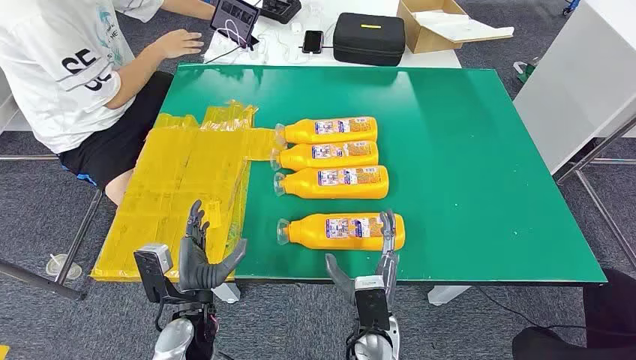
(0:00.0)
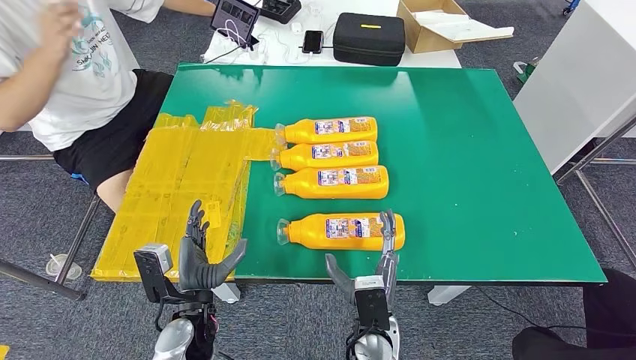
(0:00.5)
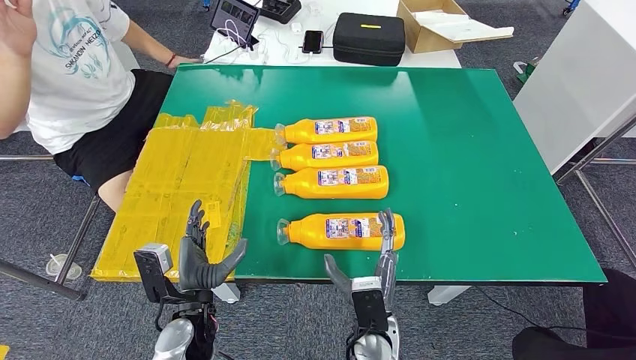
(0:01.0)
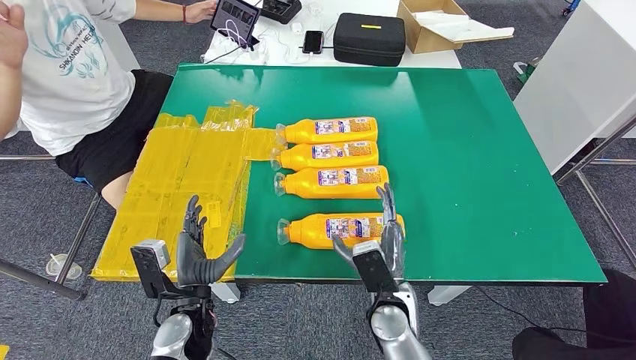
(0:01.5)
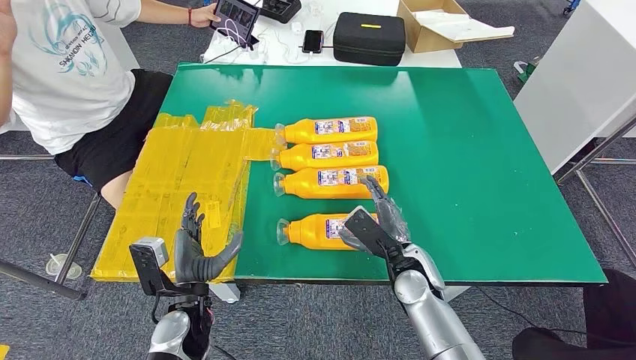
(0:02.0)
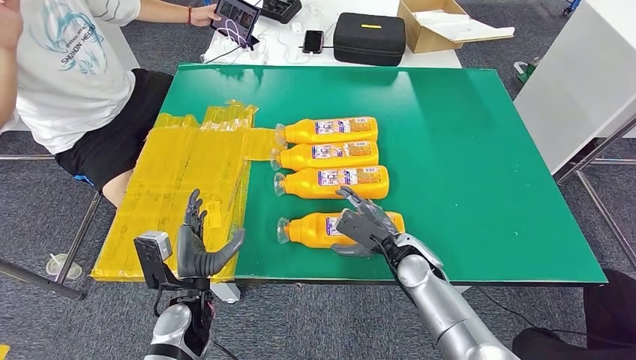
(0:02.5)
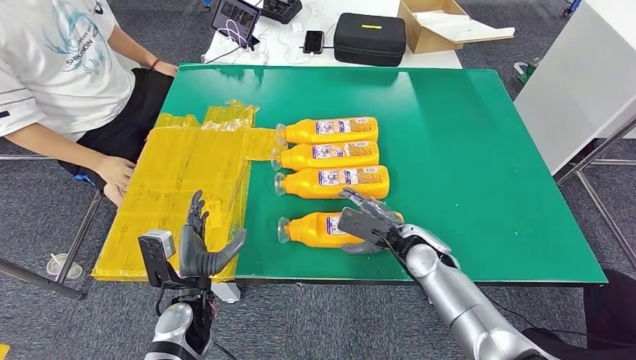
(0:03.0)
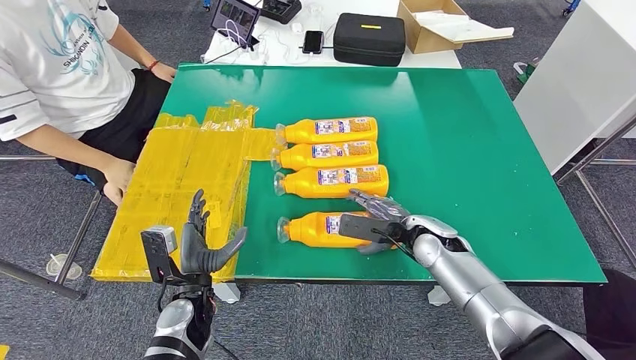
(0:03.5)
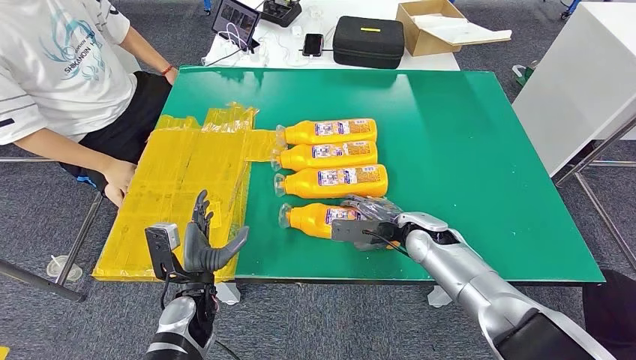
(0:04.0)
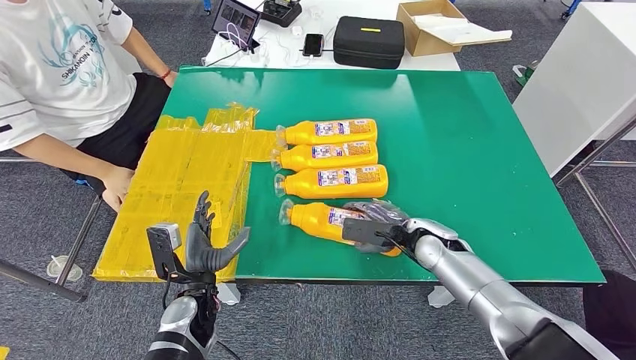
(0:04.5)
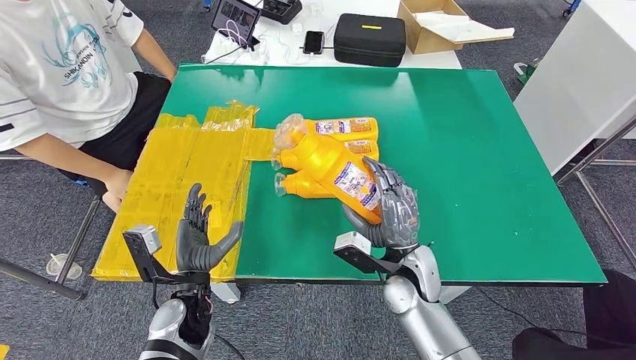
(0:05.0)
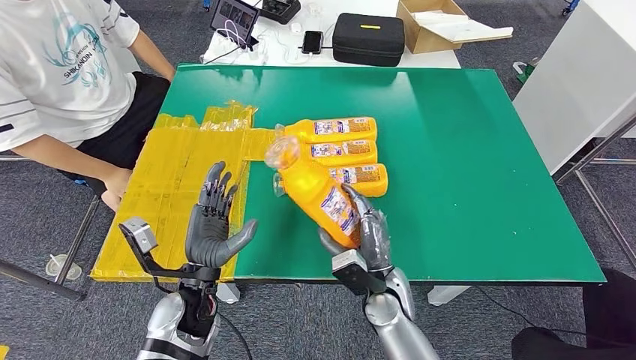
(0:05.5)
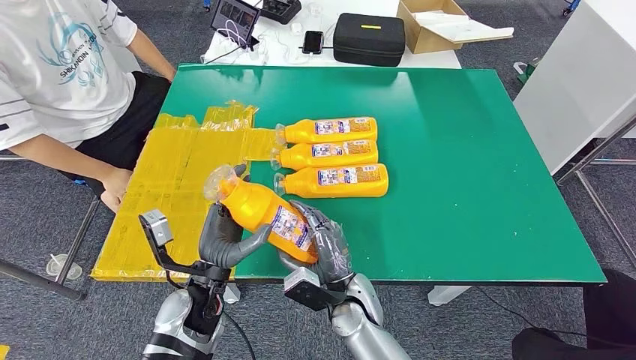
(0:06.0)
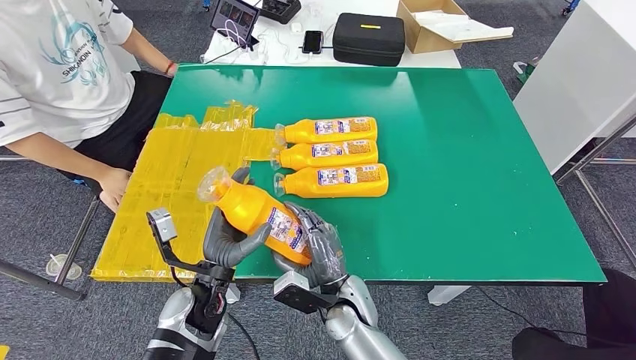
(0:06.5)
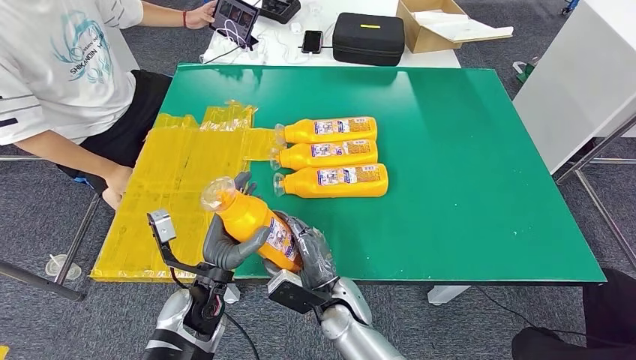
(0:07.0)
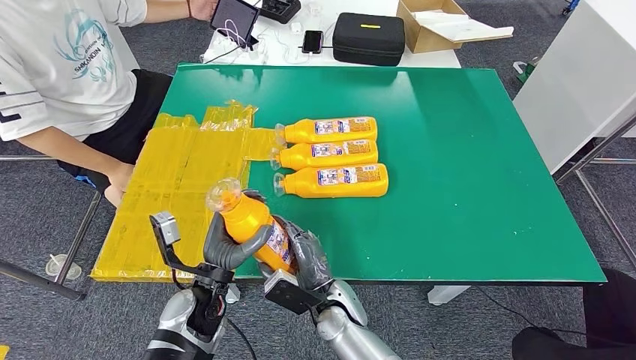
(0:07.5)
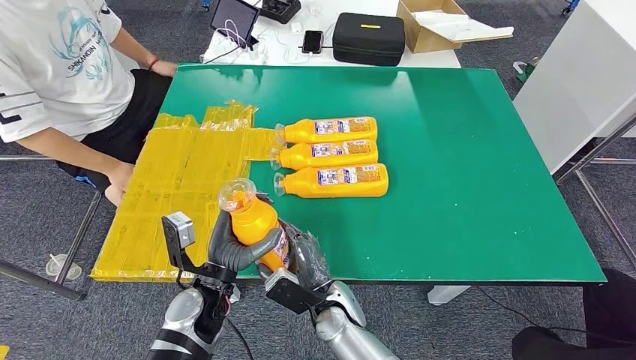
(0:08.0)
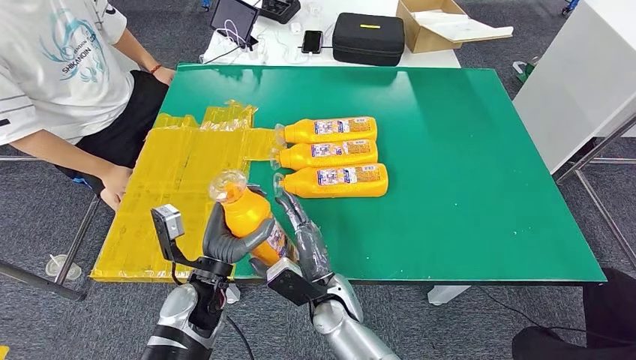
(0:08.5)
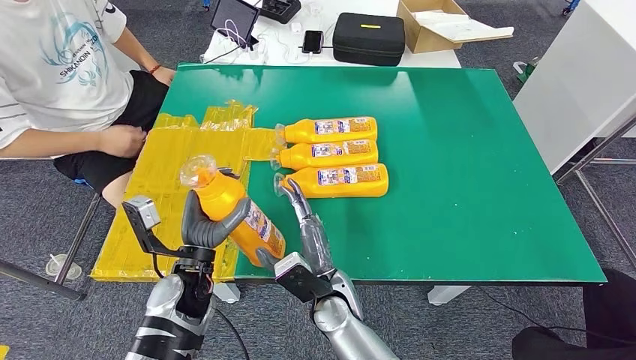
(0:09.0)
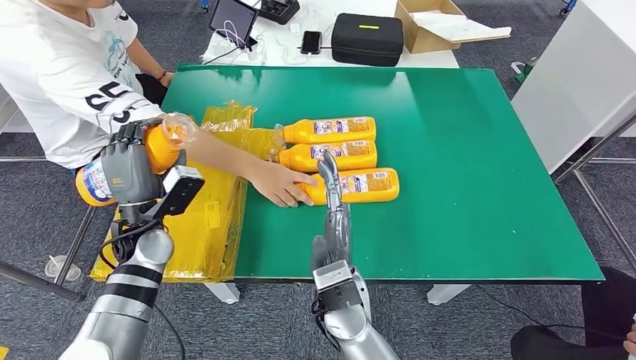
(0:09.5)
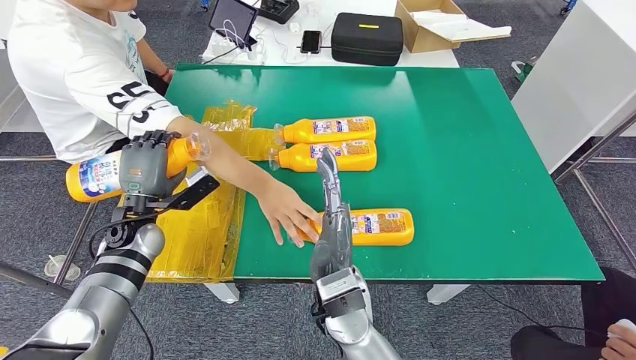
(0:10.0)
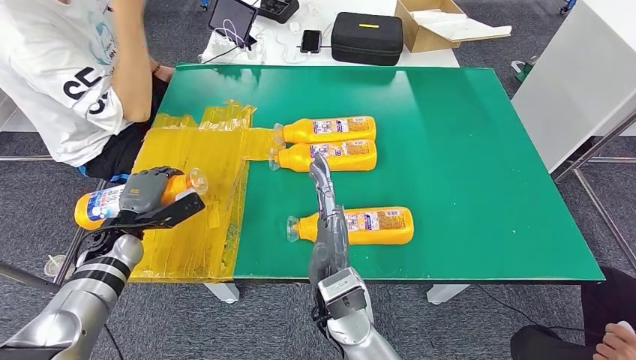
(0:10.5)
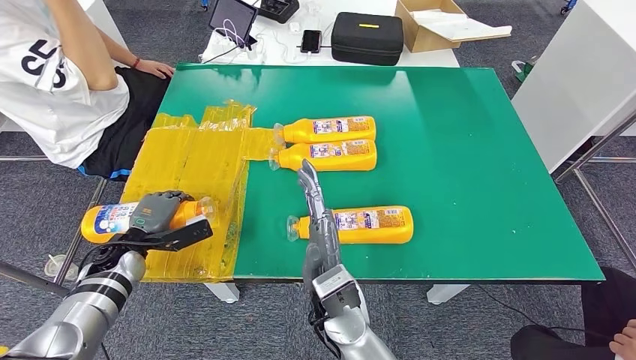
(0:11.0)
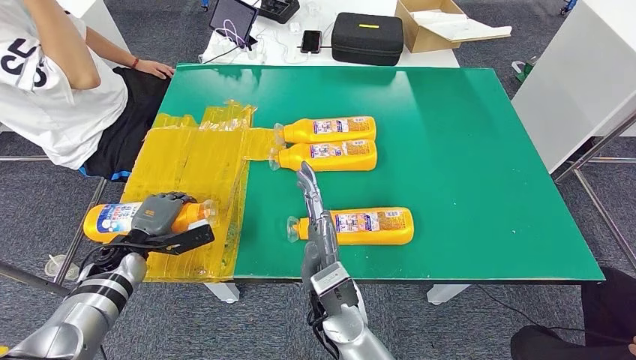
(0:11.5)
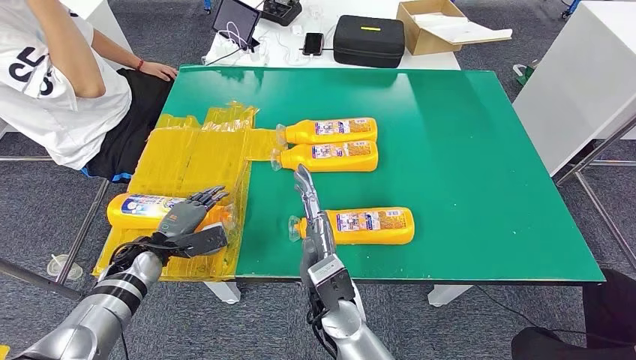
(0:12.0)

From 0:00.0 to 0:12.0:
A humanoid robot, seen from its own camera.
Step, from 0:00.0 to 0:06.0: Take the fast-moving consumer goods bottle from the table.
Step, from 0:06.5 to 0:11.0: Flip the fast-moving consumer goods bottle to the front side.
From 0:06.0 to 0:08.0: The hands stay close to where they were, moving slightly.

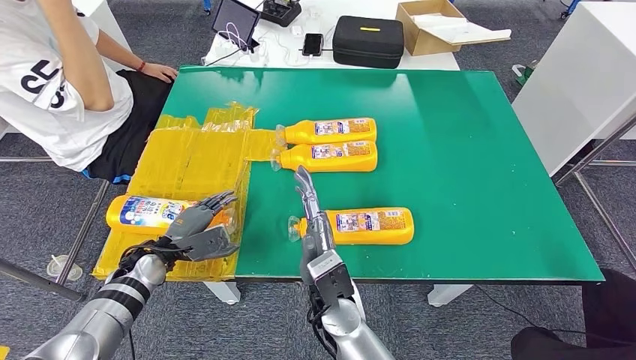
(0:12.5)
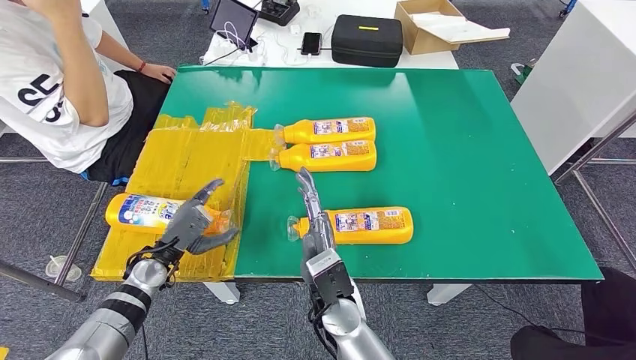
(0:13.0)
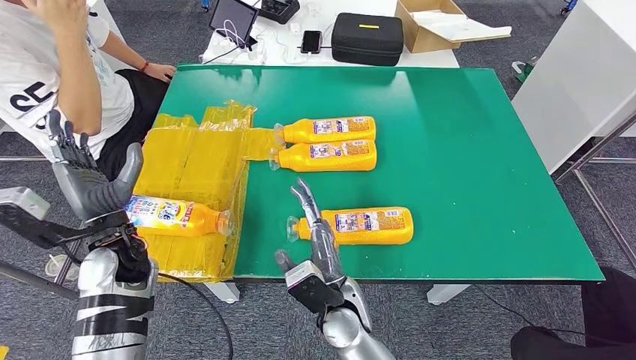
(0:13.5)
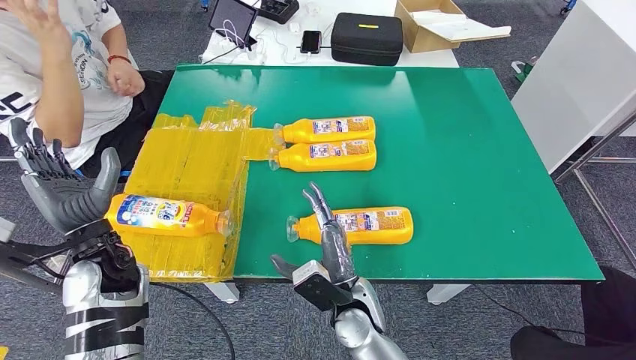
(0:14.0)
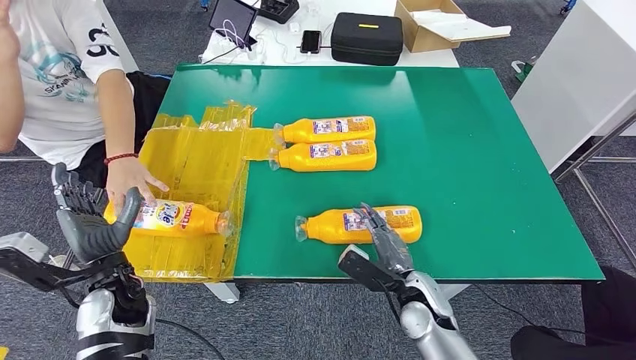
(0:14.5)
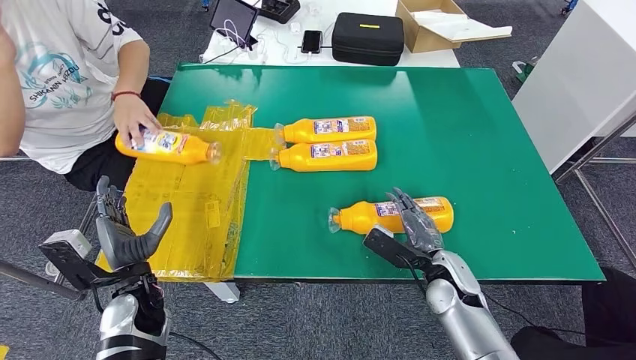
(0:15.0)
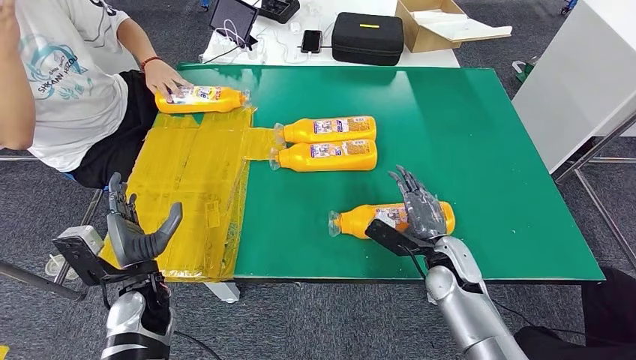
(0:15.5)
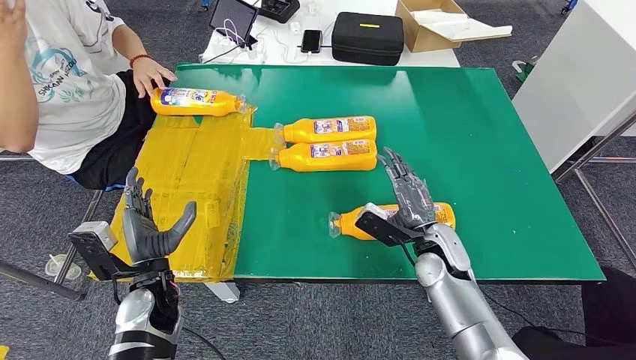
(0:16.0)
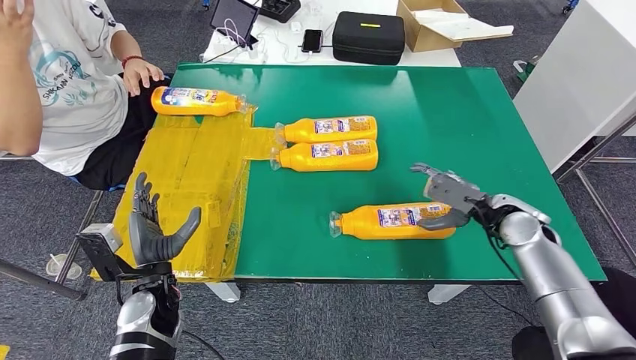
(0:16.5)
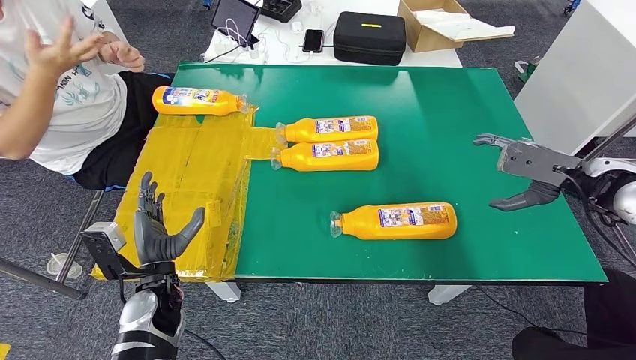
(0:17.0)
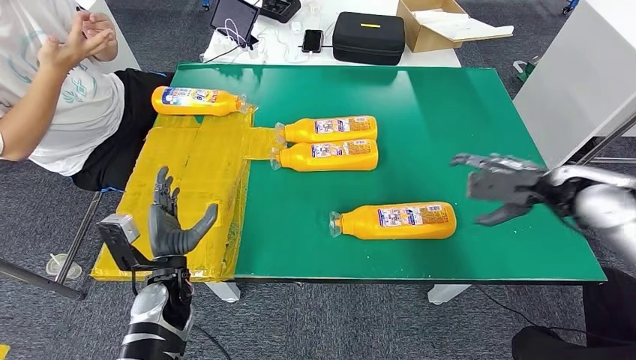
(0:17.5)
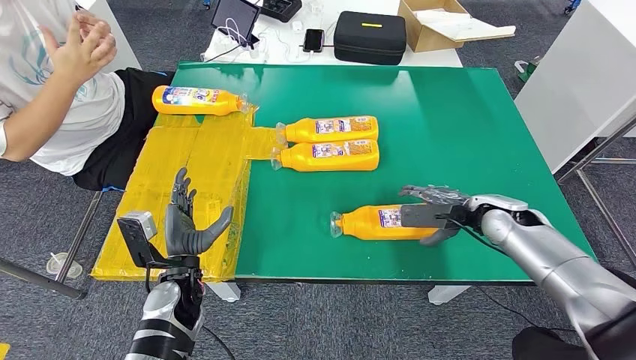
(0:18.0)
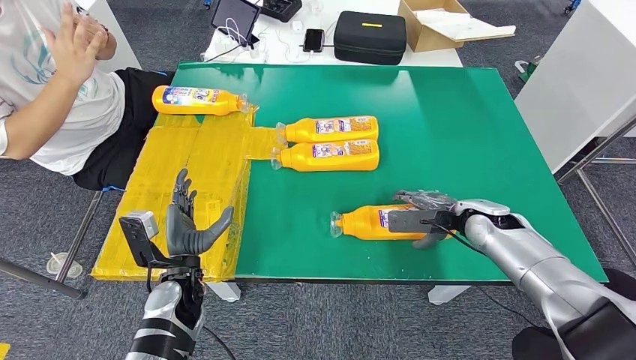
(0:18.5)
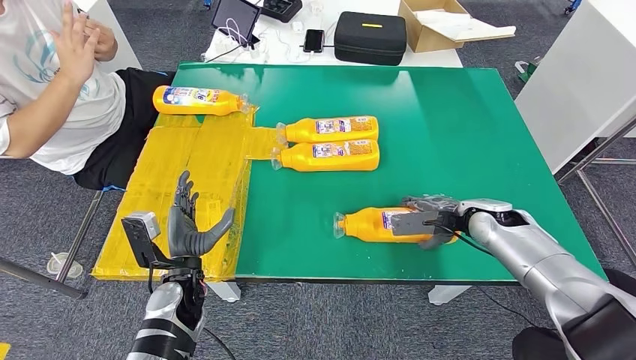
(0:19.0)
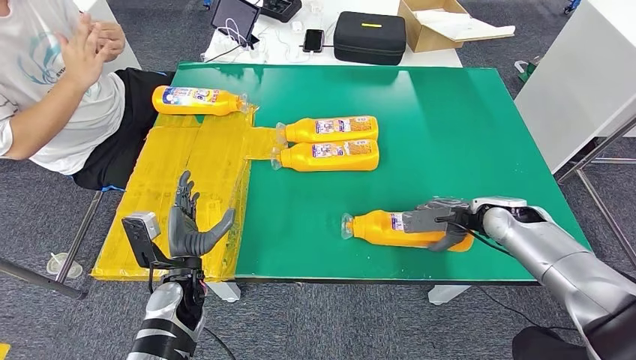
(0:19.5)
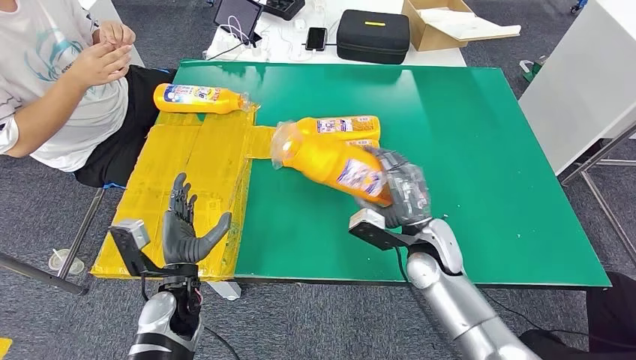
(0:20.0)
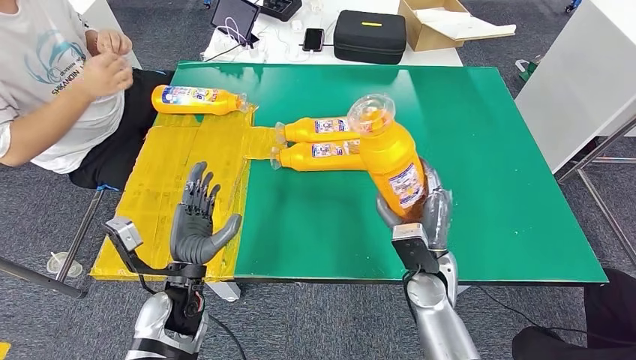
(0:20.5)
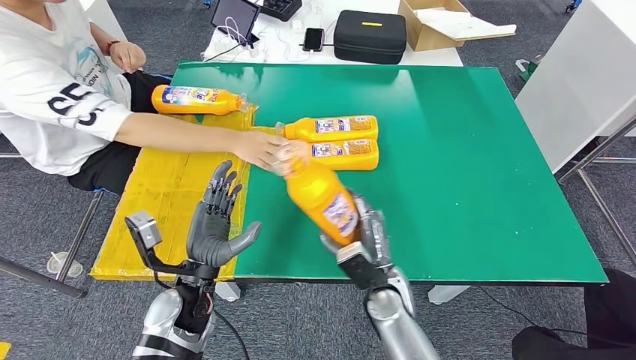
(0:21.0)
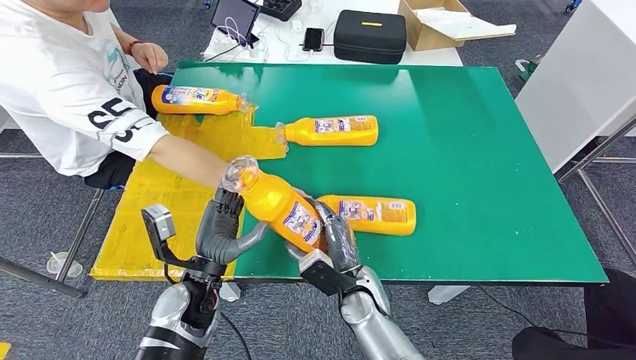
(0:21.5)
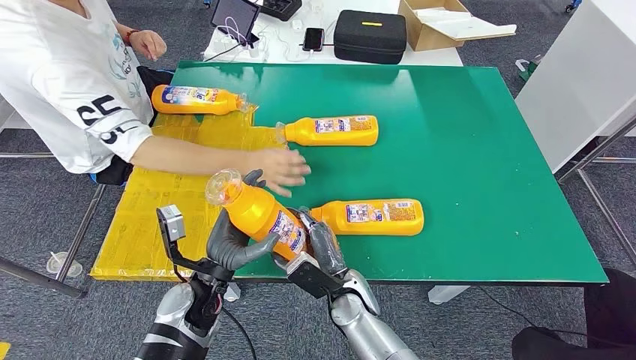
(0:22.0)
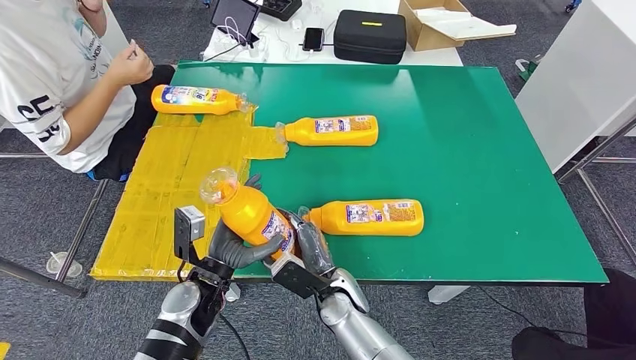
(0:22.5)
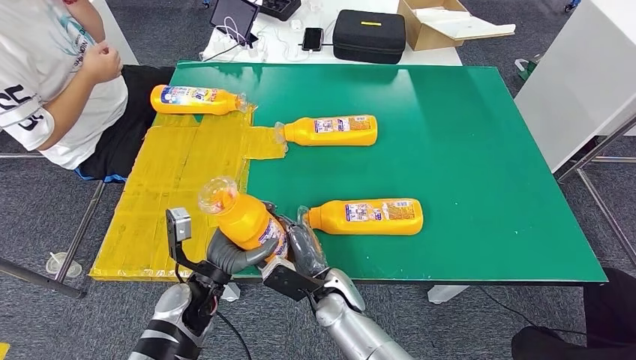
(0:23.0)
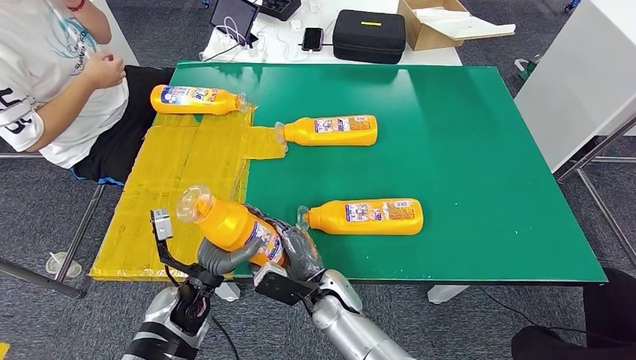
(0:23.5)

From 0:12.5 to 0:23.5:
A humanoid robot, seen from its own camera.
Step, from 0:12.5 to 0:21.5: Pick up the fast-moving consumer goods bottle from the table.
